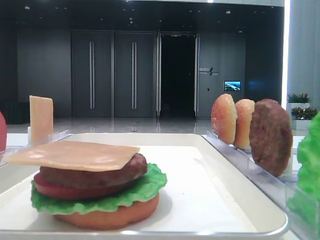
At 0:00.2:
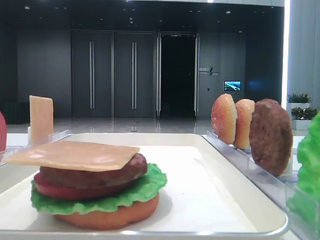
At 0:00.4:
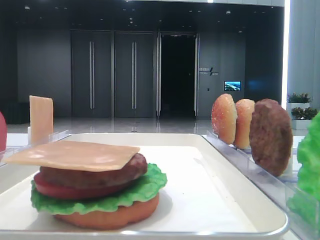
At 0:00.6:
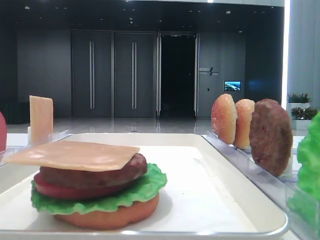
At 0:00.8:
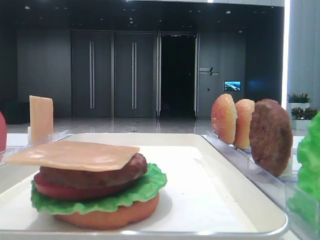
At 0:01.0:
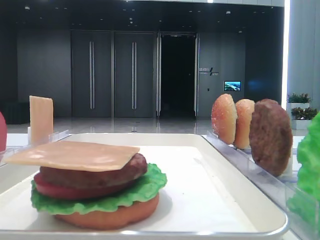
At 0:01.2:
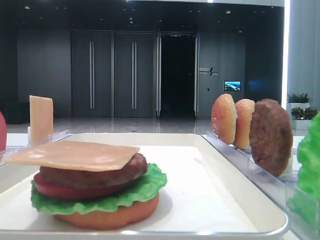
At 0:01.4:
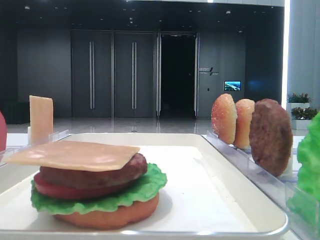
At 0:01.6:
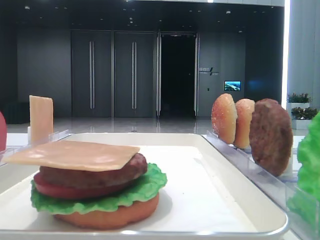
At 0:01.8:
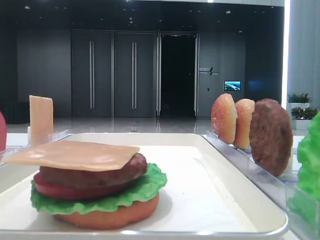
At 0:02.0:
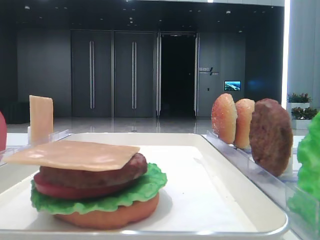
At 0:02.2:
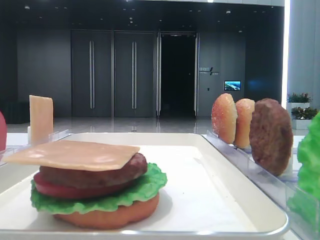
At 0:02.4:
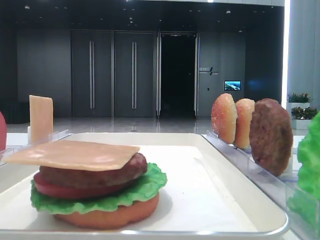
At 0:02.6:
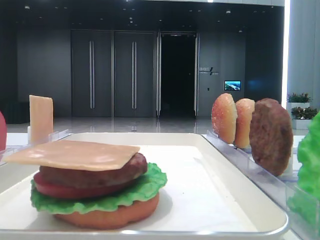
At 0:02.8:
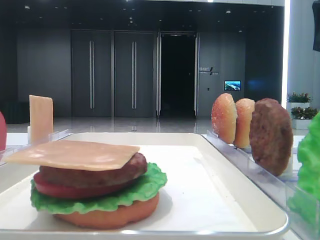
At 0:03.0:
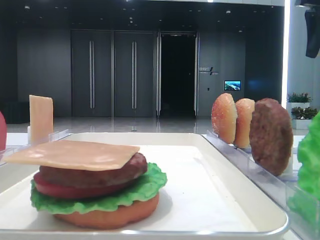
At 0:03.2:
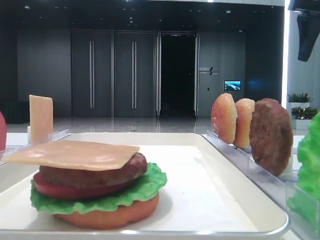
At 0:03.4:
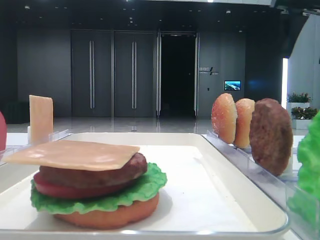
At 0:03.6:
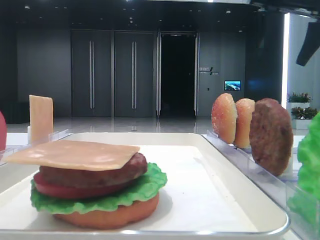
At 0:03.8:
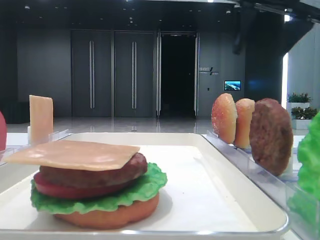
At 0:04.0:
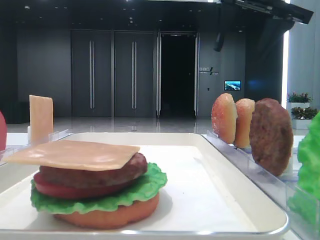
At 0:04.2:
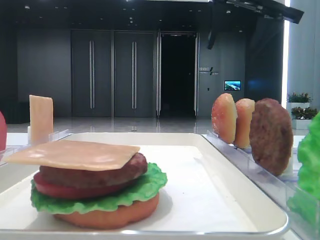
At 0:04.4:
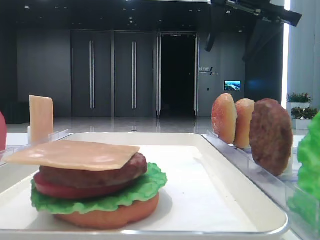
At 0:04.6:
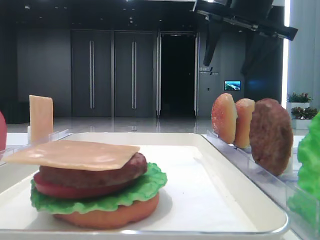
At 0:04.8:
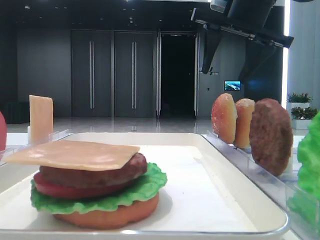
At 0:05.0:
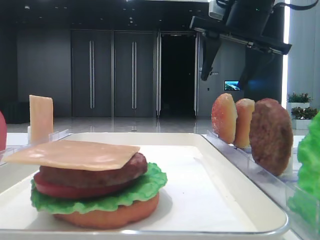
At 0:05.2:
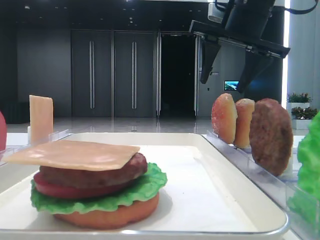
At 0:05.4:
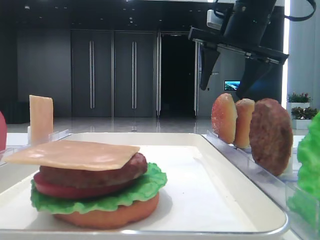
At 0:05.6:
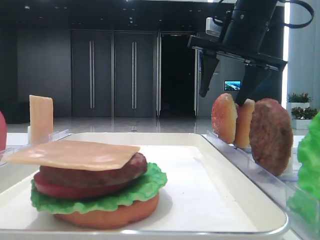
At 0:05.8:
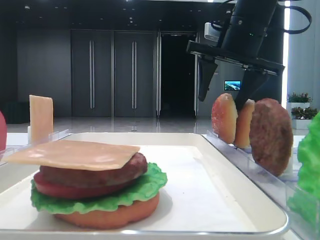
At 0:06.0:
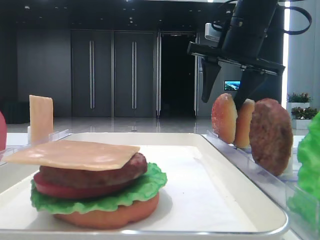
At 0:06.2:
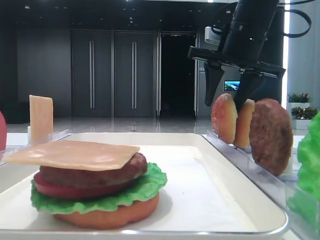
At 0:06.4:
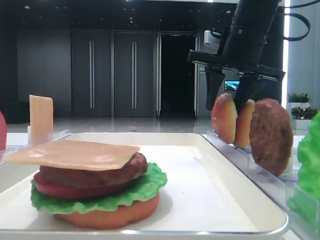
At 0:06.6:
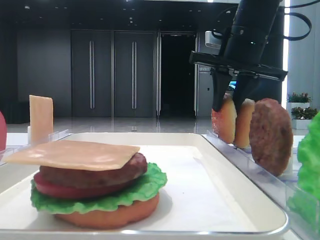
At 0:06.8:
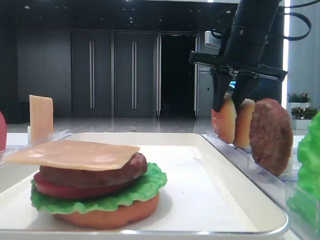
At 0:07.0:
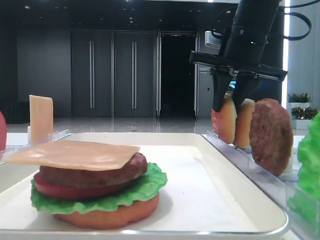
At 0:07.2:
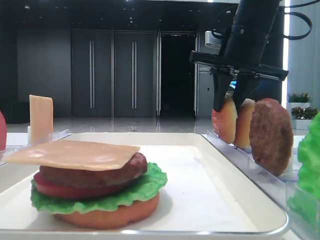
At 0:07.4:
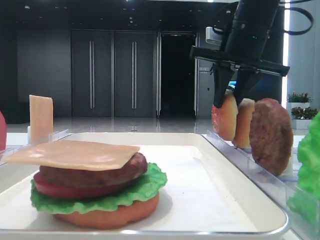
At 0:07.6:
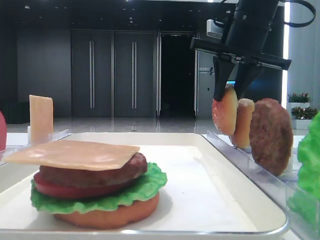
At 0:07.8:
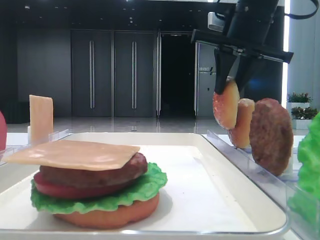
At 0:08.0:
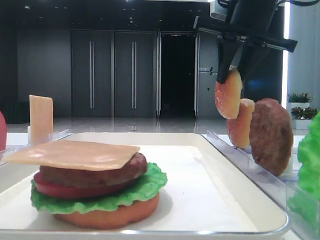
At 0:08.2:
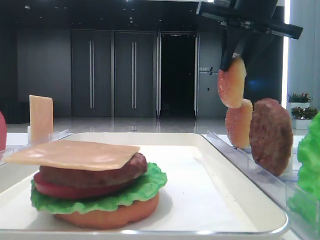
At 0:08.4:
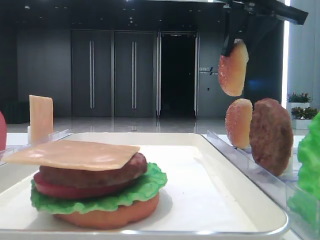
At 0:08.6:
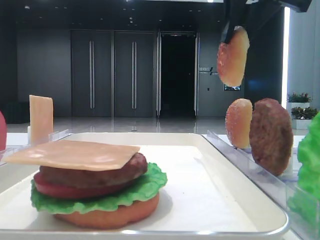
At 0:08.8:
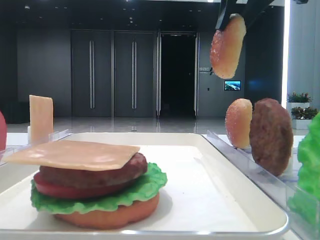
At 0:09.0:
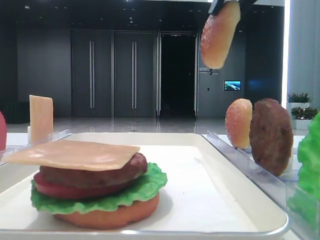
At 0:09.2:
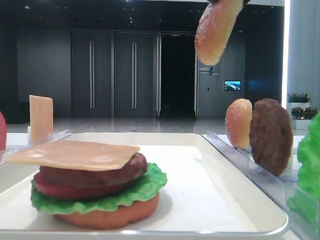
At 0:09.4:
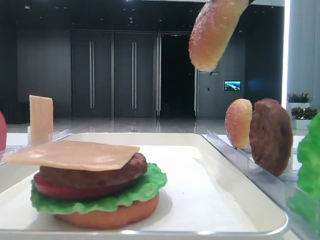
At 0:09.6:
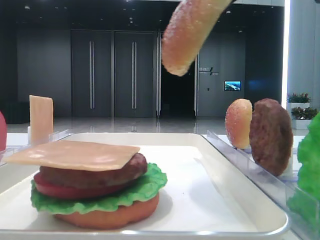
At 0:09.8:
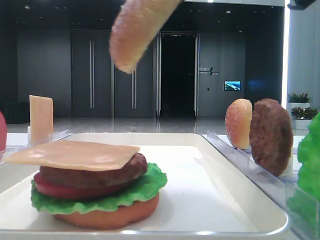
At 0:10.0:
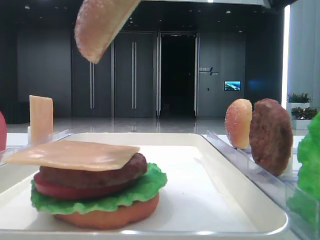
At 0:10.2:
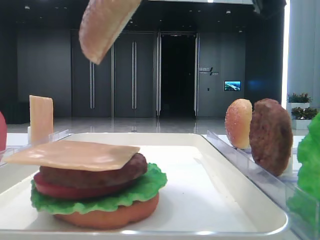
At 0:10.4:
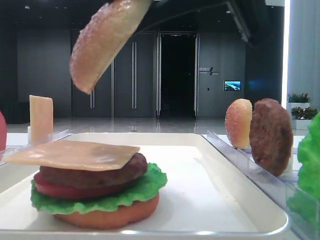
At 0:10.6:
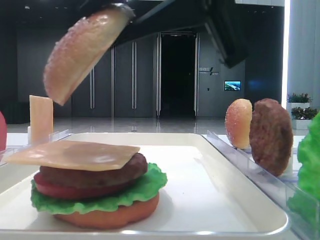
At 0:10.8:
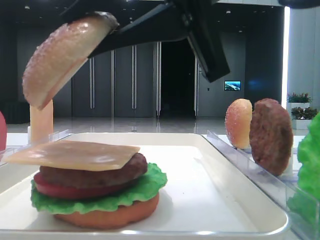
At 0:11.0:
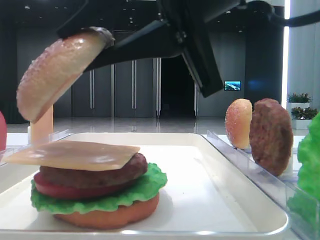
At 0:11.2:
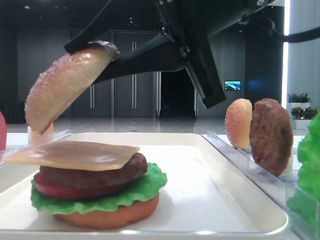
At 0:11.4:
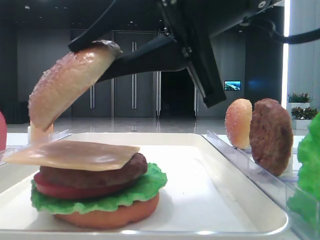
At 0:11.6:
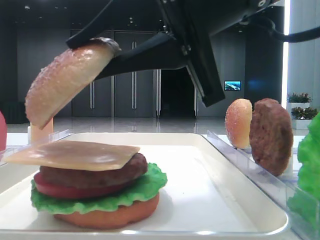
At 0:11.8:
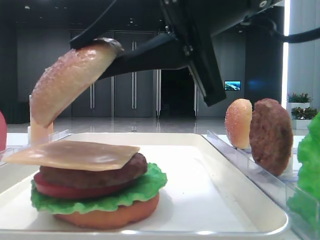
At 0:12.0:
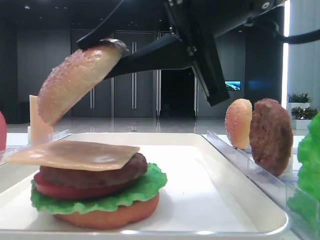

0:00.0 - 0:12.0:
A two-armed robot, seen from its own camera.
Step, 0:00.0 - 0:07.2: Pick up the top bread slice with the right hand.
0:01.6 - 0:03.0: The right gripper heads forward, covering some 25 cm.
0:03.0 - 0:04.4: The right gripper moves to the left, about 15 cm.
0:04.4 - 0:06.0: The right gripper travels downward by approximately 5 cm.
0:06.0 - 0:07.6: The right gripper closes.
0:07.6 - 0:09.0: The right gripper moves backward and upward, some 15 cm.
0:09.0 - 0:10.4: The right gripper is displaced backward, downward and to the left by about 15 cm.
0:10.4 - 0:12.0: The right gripper moves roughly 5 cm.

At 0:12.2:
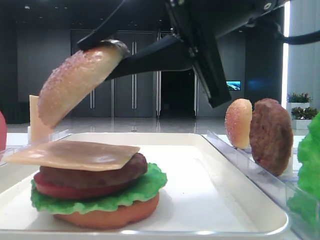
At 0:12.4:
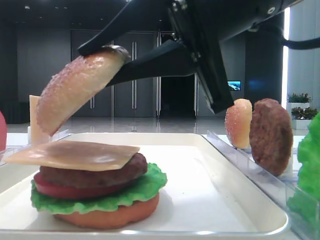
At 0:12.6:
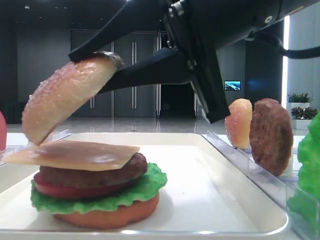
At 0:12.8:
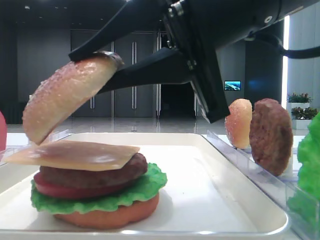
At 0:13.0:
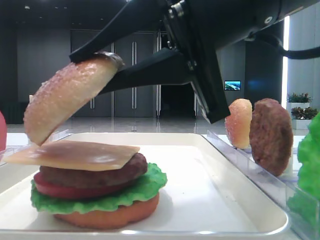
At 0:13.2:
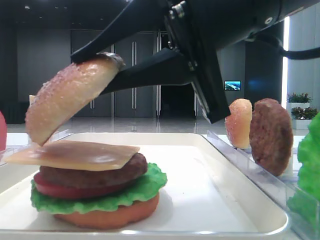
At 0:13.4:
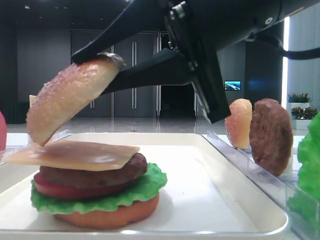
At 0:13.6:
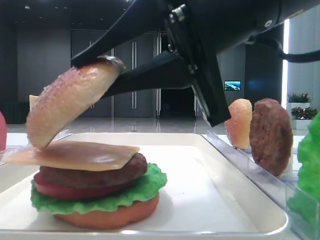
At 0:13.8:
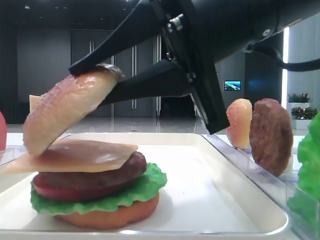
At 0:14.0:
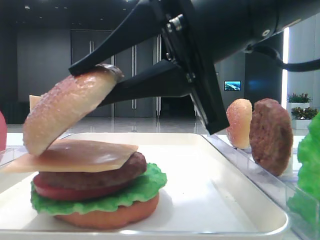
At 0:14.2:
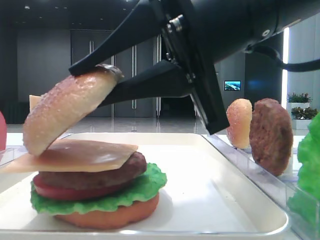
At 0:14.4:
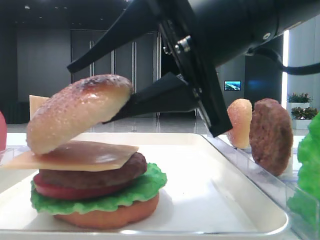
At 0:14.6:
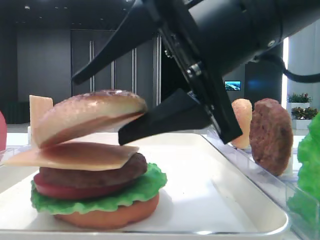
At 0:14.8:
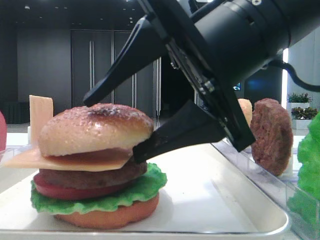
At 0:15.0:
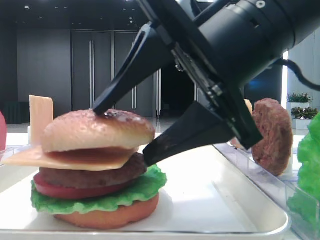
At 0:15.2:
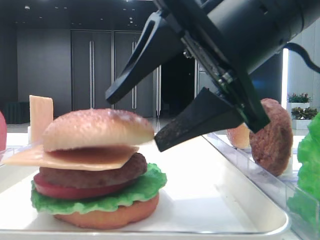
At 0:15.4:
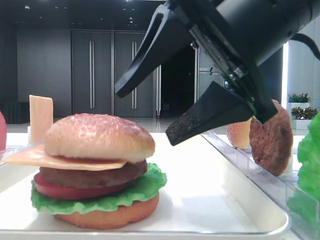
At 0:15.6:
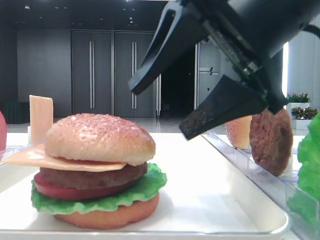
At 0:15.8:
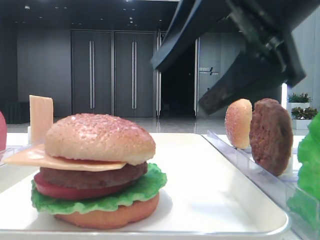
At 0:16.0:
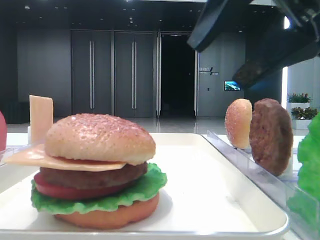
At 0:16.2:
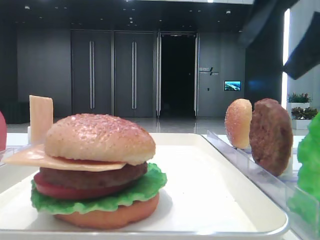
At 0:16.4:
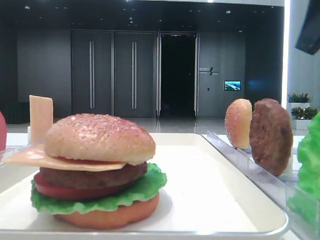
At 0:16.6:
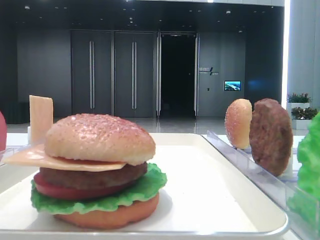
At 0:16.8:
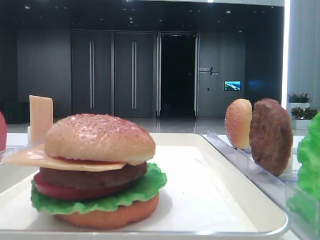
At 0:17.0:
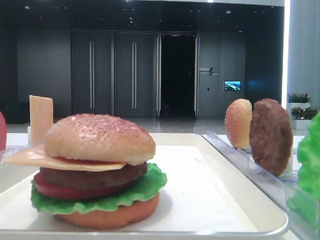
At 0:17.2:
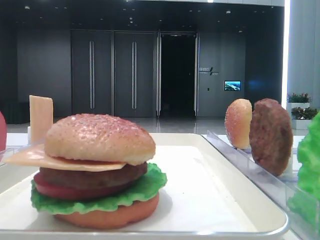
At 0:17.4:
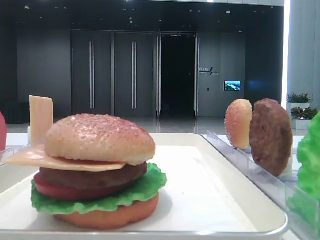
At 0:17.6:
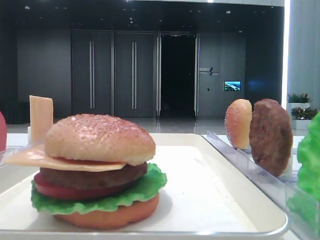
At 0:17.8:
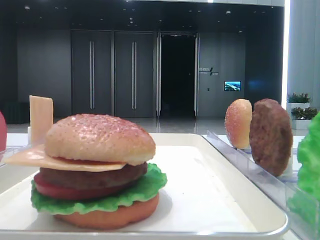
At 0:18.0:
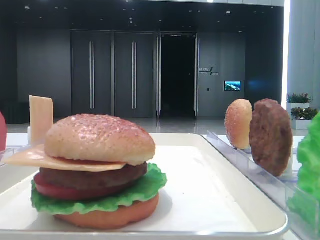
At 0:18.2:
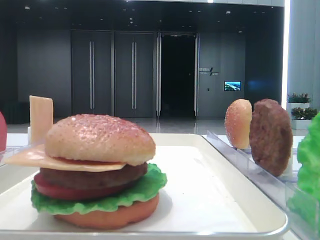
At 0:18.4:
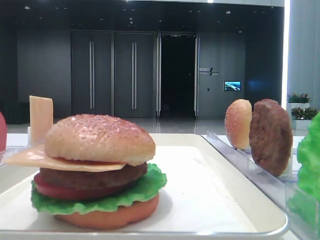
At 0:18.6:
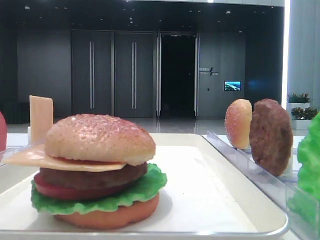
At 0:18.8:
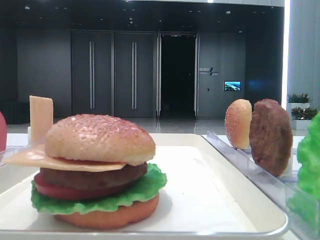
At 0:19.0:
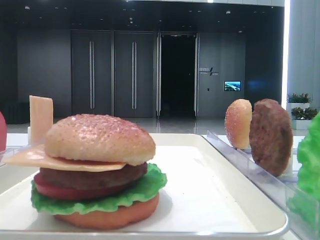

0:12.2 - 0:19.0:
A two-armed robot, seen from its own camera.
Step, 0:12.2 - 0:15.0: Place the top bread slice on the cheese with the right hand.
0:12.2 - 0:13.6: The grippers move only a little.
0:13.6 - 0:15.0: The right gripper opens up.
0:15.0 - 0:16.2: The right gripper travels to the right and upward by approximately 15 cm.
0:16.2 - 0:17.6: The right gripper is displaced backward and to the right by roughly 15 cm.

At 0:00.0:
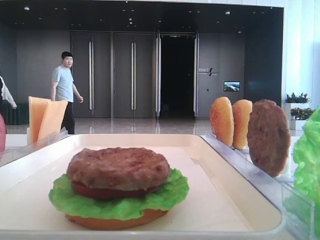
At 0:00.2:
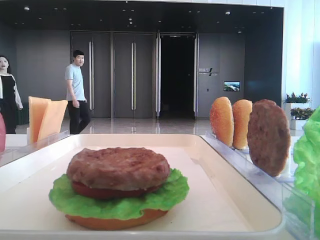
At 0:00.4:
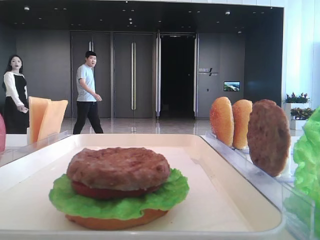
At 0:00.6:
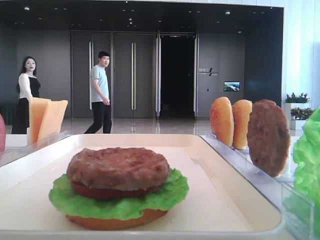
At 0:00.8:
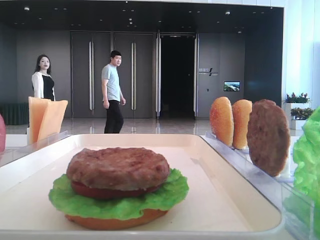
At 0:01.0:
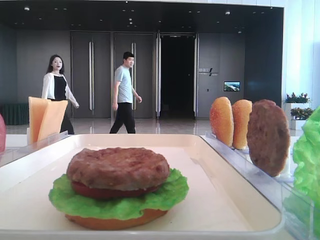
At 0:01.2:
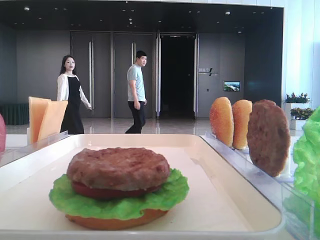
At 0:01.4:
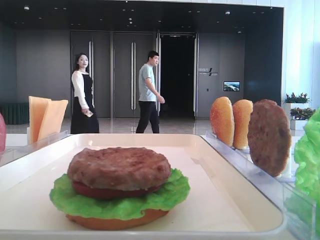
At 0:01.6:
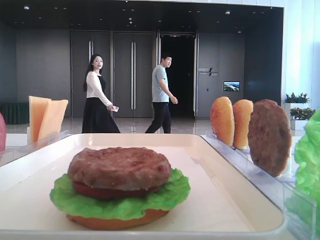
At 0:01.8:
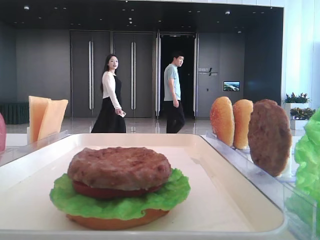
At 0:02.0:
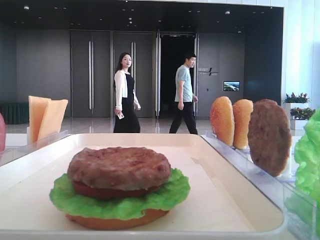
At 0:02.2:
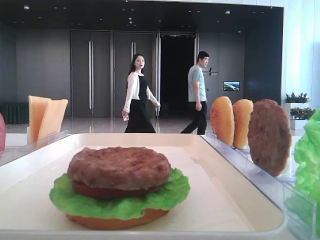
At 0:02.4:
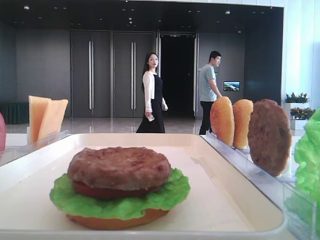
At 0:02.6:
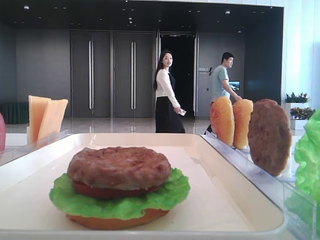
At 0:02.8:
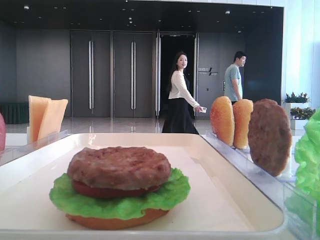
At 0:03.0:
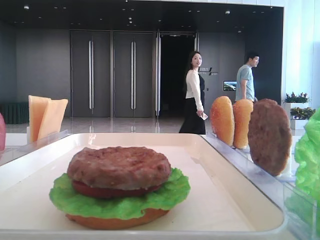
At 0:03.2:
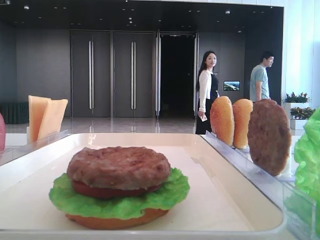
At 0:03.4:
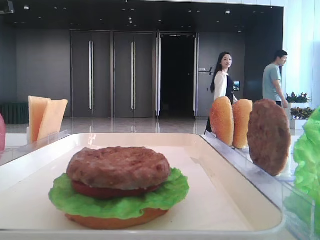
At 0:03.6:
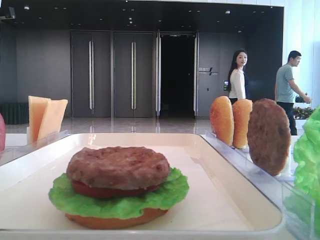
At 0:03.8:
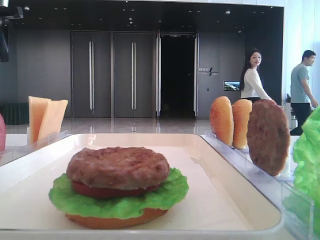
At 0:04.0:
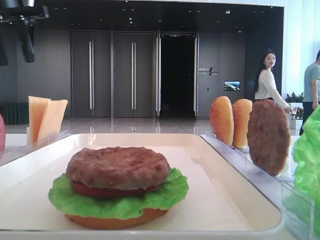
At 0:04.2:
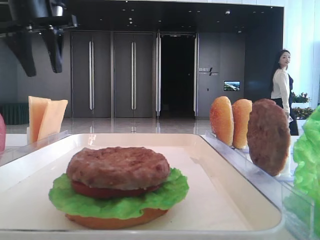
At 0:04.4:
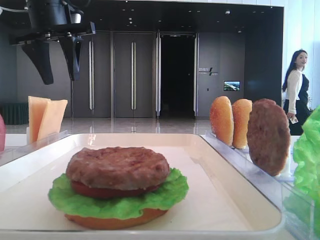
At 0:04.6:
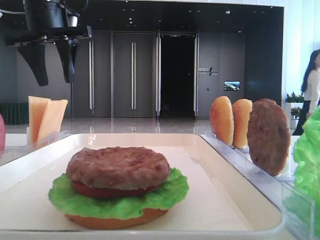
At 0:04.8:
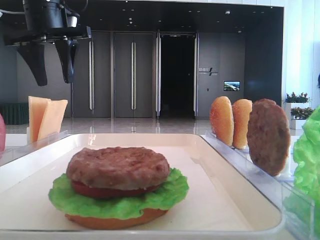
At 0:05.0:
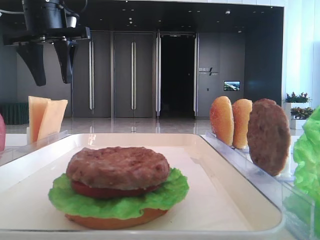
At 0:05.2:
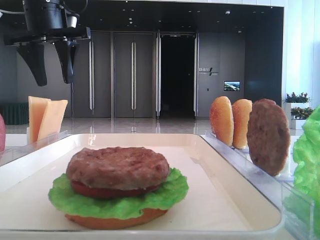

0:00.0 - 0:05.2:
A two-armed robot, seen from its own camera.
0:01.8 - 0:03.4: The left gripper goes about 35 cm forward.
0:03.4 - 0:05.2: The left gripper heads to the right, covering about 15 cm.
